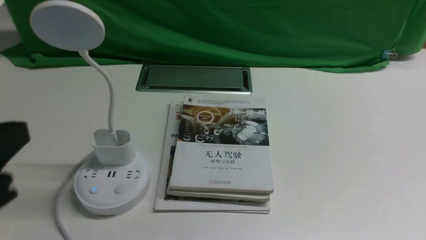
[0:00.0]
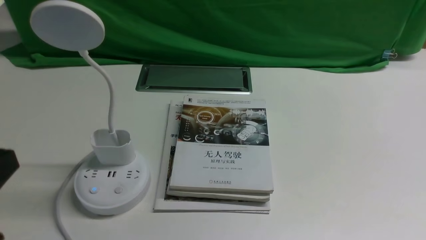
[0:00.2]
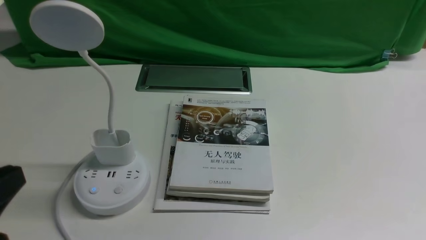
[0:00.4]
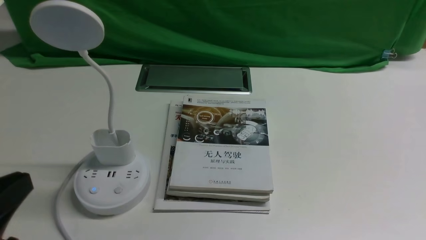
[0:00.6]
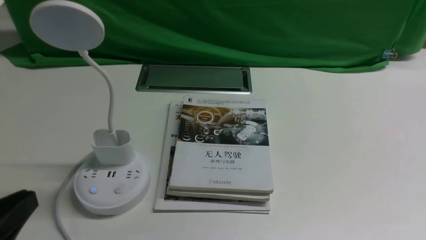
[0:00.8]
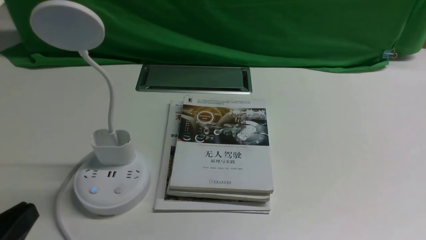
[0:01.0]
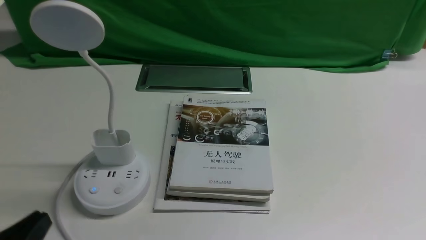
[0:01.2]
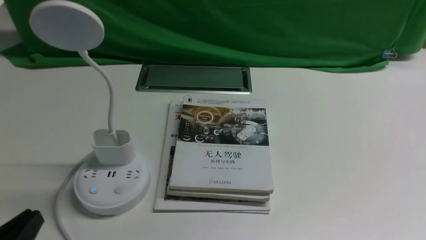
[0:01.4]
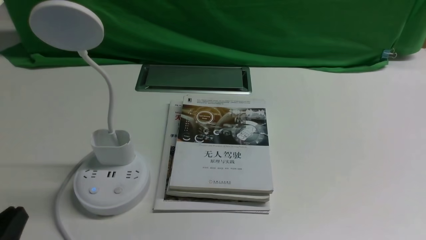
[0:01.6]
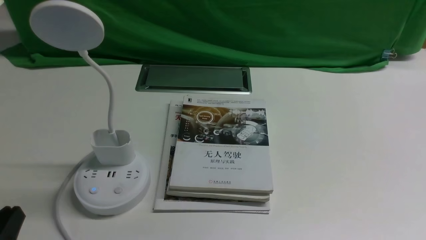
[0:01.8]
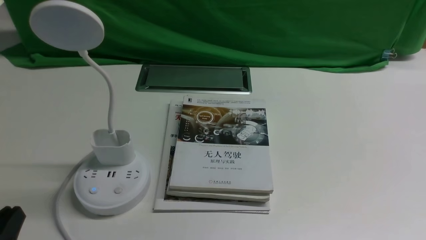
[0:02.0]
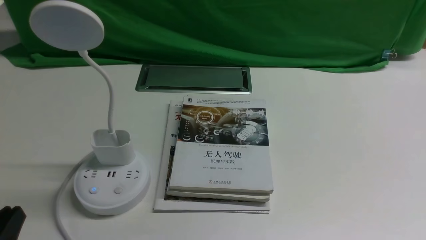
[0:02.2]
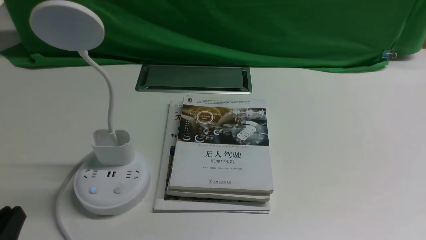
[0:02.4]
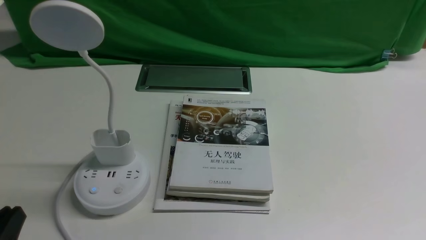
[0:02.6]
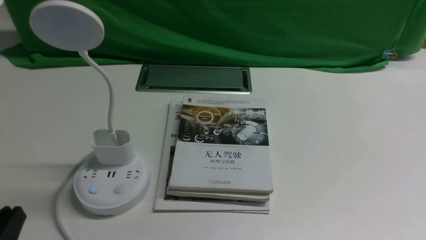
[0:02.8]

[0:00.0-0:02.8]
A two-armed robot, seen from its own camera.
Task of the whole recording: turn off the desk lamp on the white desktop by hand.
0:00.0 to 0:01.4: The left gripper is displaced downward by approximately 15 cm, and opens its fingers.
0:01.4 to 0:02.8: The left gripper opens up.

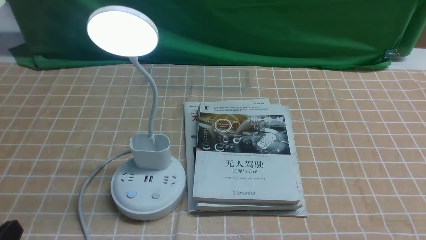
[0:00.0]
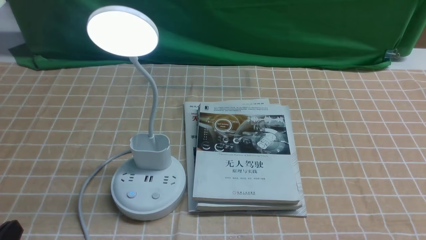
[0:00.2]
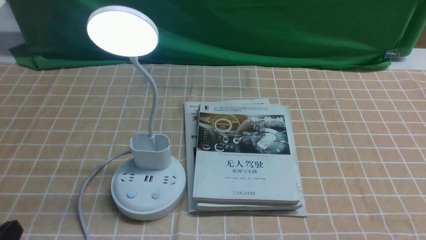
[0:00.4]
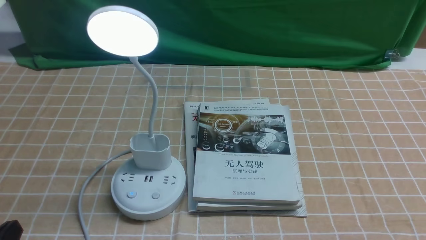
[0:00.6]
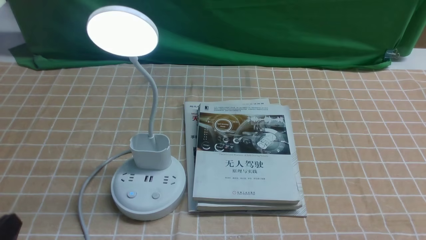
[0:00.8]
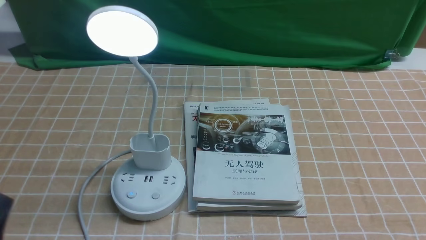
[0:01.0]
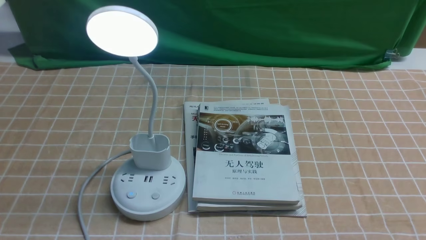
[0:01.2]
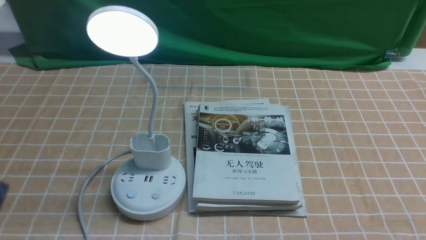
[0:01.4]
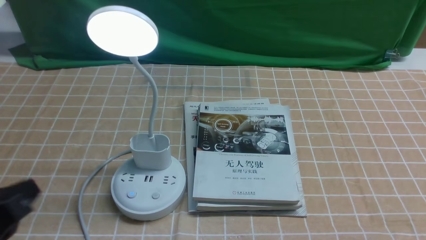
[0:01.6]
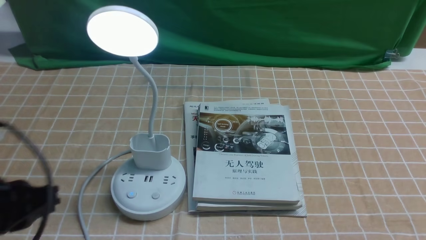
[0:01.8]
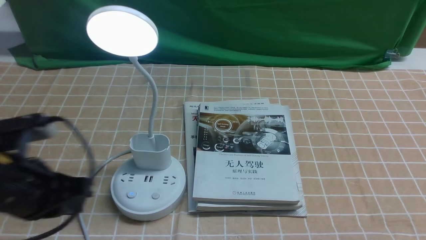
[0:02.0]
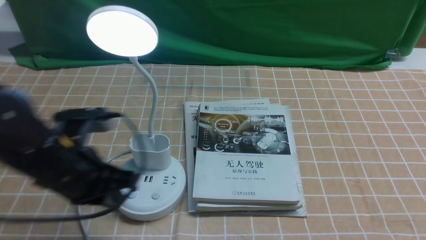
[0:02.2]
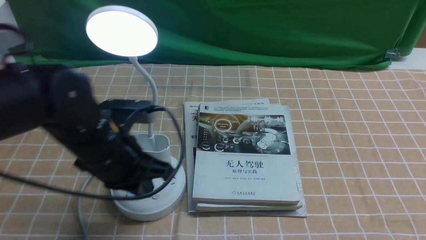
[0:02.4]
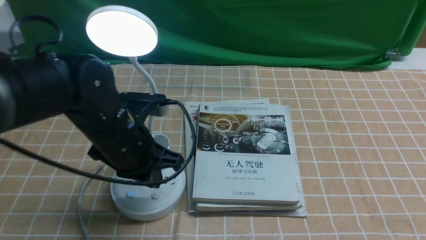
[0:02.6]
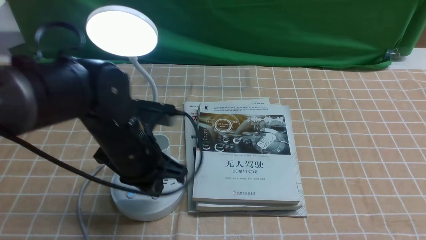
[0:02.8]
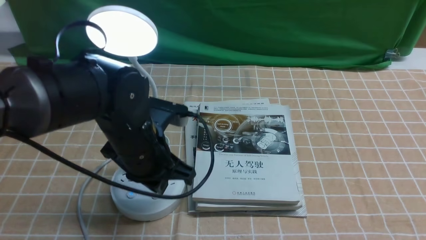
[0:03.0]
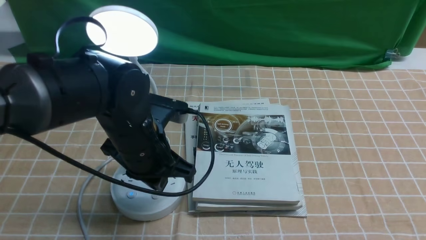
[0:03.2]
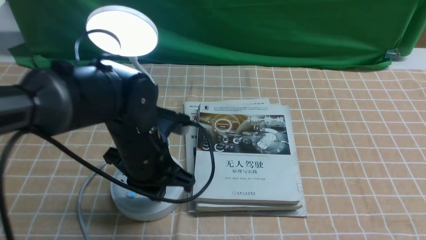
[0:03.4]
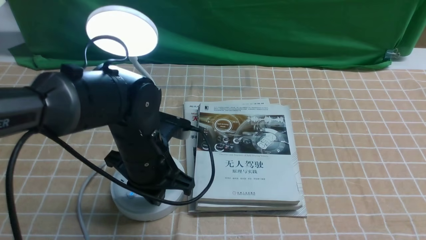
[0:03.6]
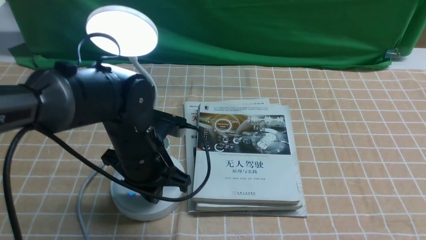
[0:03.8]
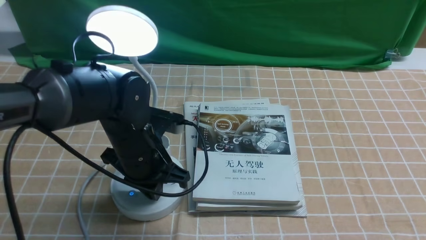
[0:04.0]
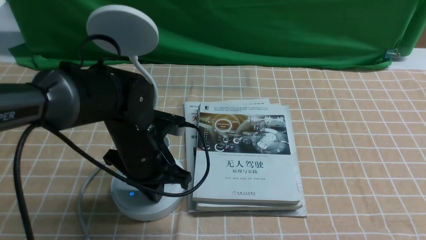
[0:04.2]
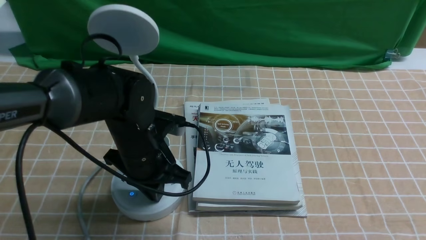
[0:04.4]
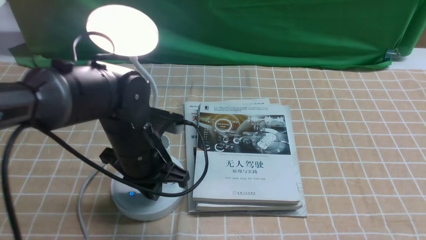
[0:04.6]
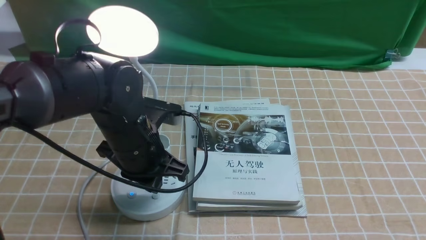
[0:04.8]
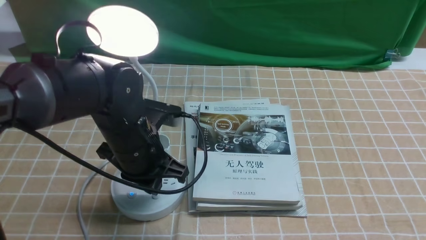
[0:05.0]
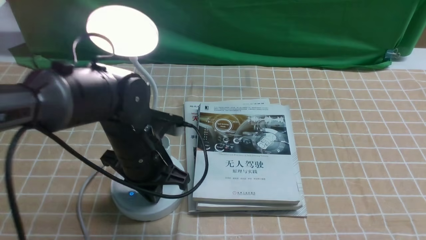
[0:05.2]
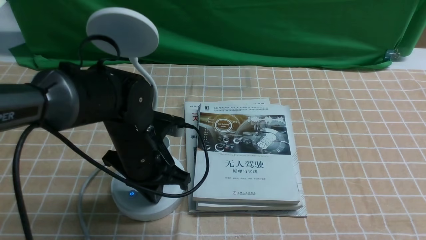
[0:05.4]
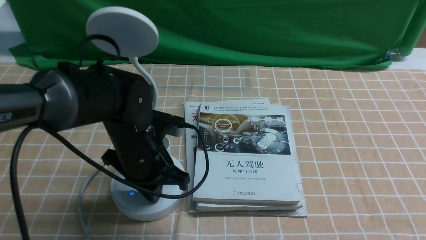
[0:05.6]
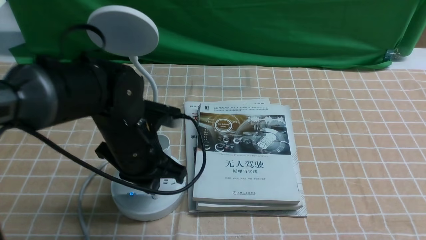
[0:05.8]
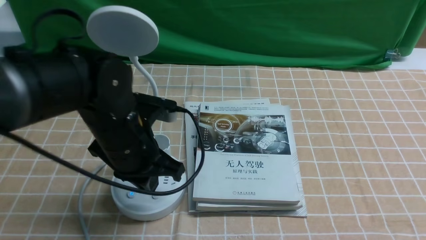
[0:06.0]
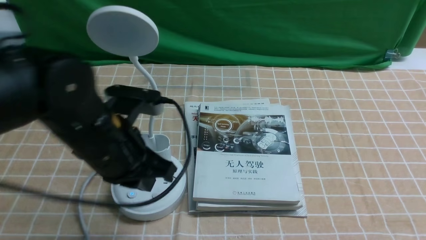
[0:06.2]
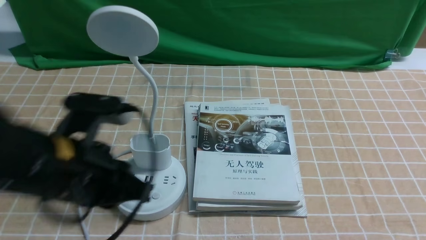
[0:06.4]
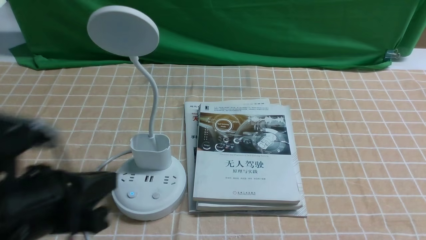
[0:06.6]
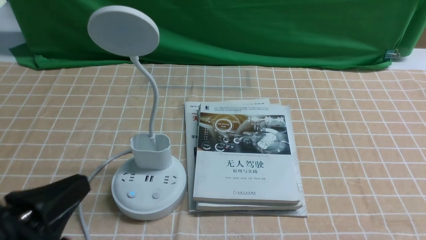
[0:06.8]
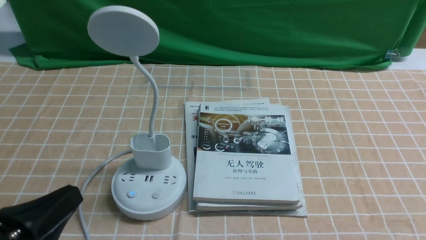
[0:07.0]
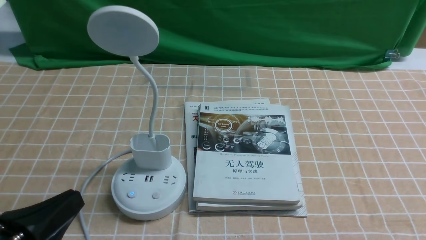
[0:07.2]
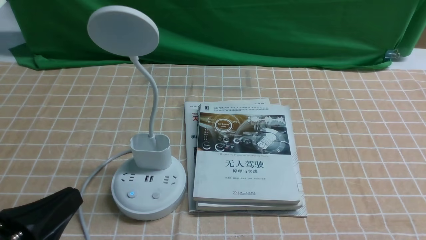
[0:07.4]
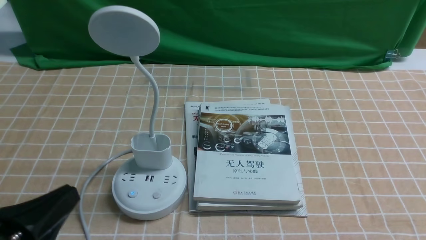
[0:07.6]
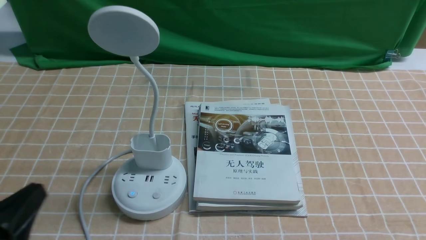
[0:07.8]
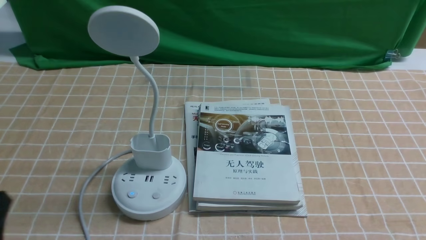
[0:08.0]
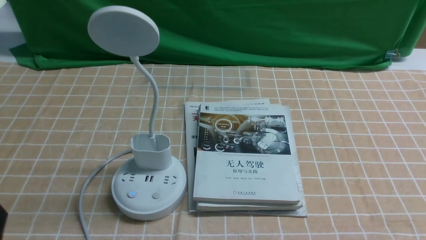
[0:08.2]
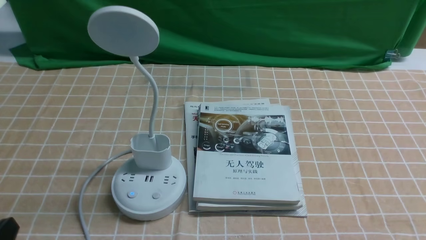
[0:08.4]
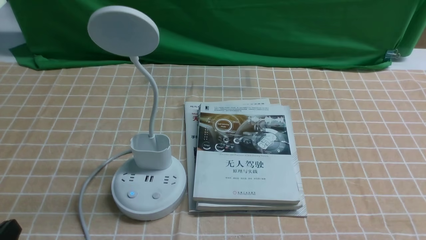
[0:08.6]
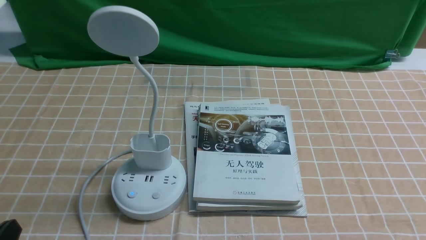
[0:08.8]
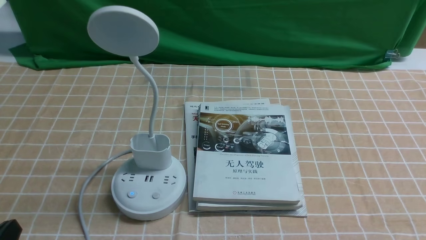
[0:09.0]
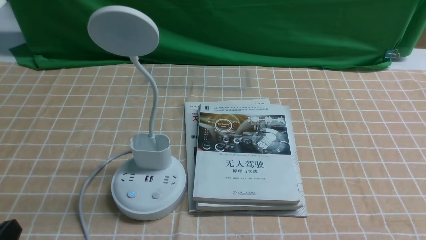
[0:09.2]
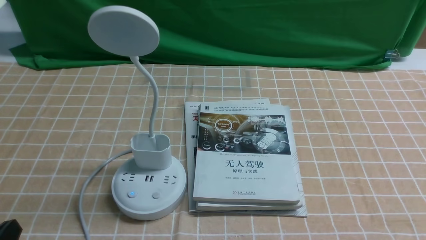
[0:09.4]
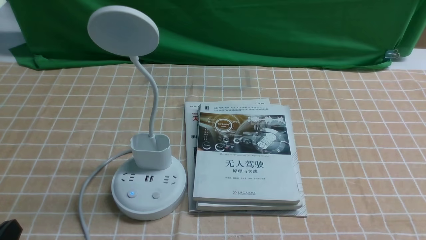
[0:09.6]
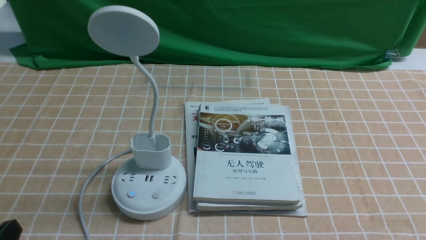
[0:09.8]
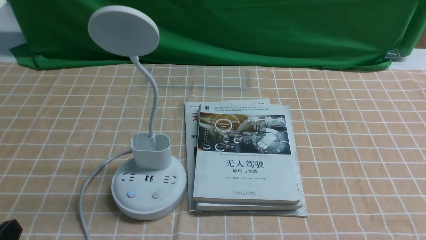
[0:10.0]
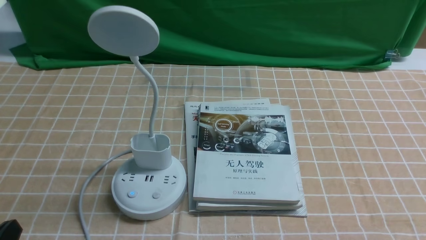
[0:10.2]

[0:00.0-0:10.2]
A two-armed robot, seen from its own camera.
Task of the whole recording: turn off the desk lamp on the light coffee tablecloth by hand.
Step, 0:00.0 to 0:05.8: use the left arm to press the button switch on the lamp holder.
0:01.4 to 0:03.0: The left gripper is displaced forward and to the right by about 25 cm.
0:03.0 to 0:05.8: The grippers stay close to where they were, moving slightly.
0:05.8 to 0:07.2: The left gripper goes roughly 25 cm backward and to the left.
0:07.2 to 0:08.8: The left gripper travels downward by roughly 5 cm, and closes its fingers.
